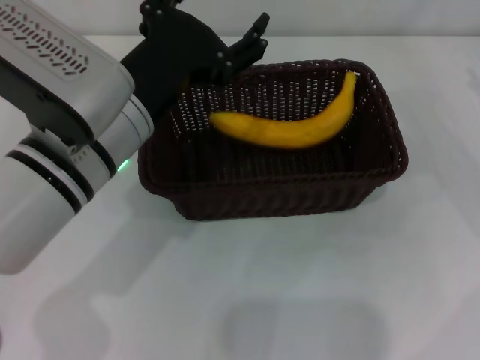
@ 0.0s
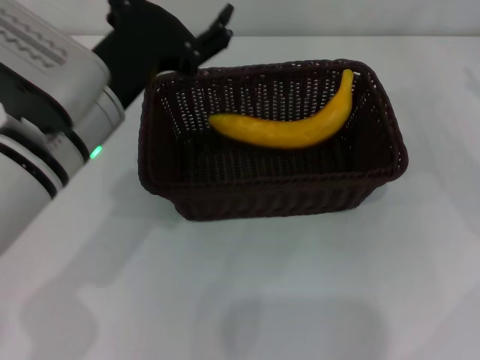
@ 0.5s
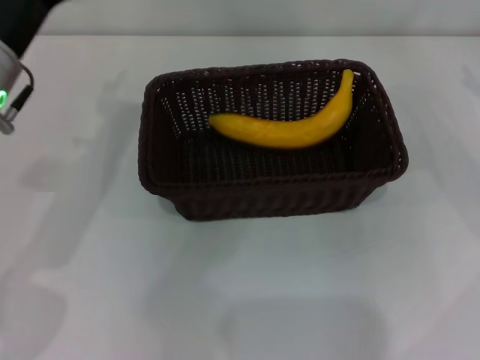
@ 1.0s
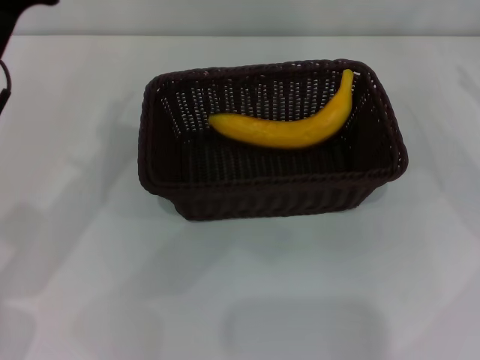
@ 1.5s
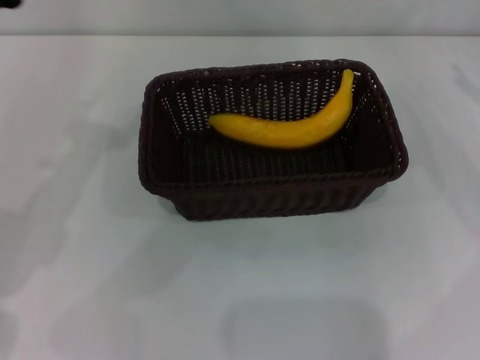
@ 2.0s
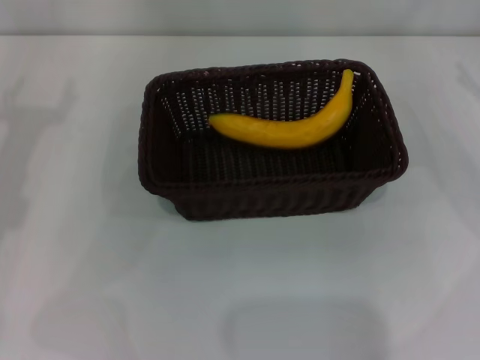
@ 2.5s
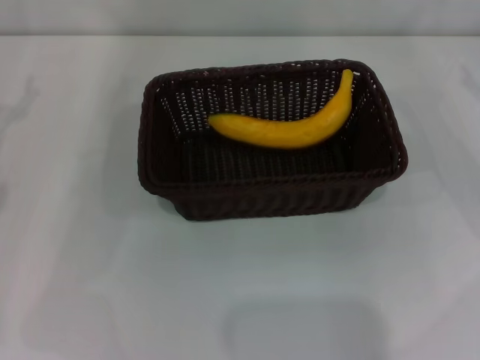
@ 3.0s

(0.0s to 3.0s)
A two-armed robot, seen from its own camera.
0.0s - 1.5s: The left gripper travels to the left by roughly 10 cm.
1.5s - 3.0s: The left gripper travels to the left by about 10 cm.

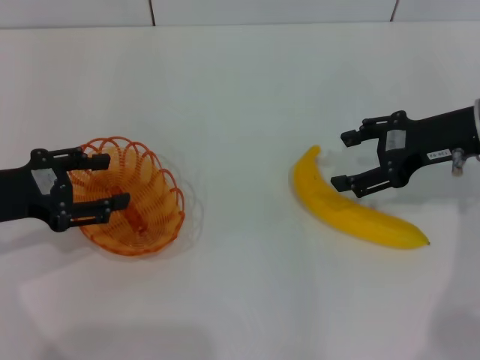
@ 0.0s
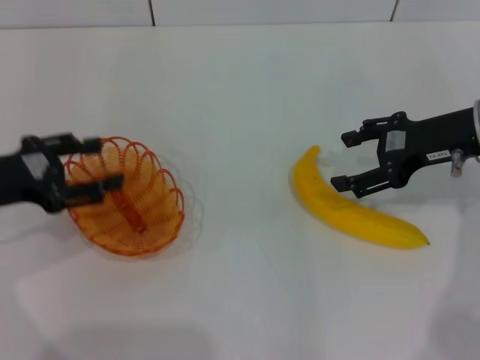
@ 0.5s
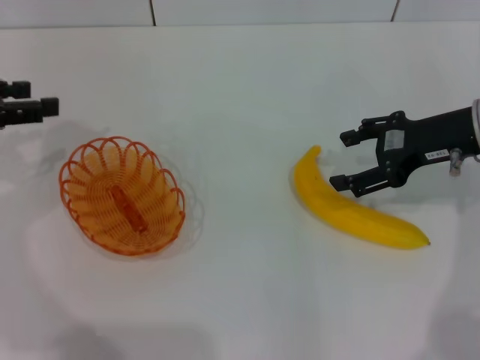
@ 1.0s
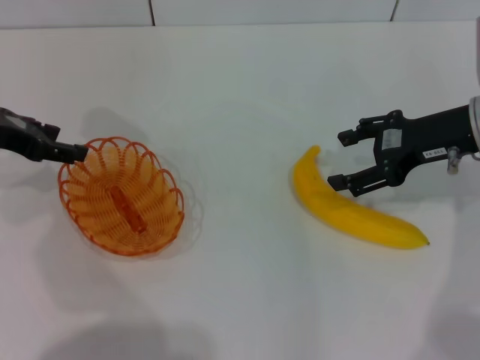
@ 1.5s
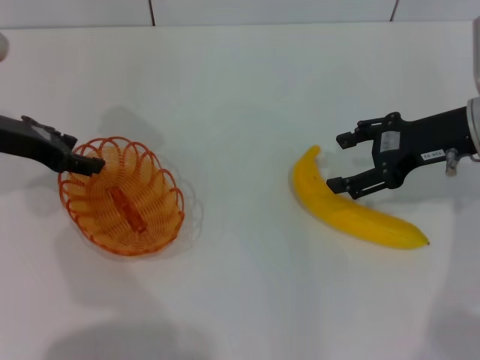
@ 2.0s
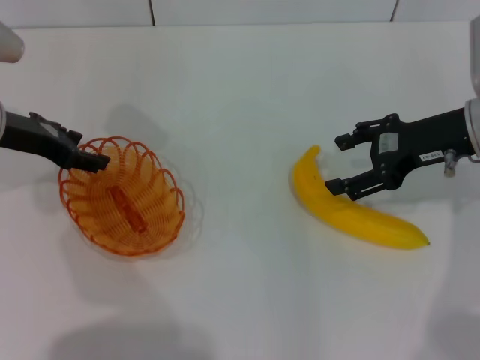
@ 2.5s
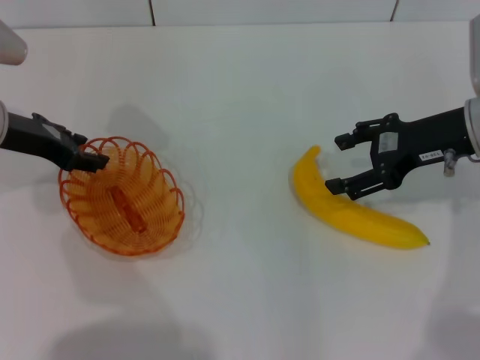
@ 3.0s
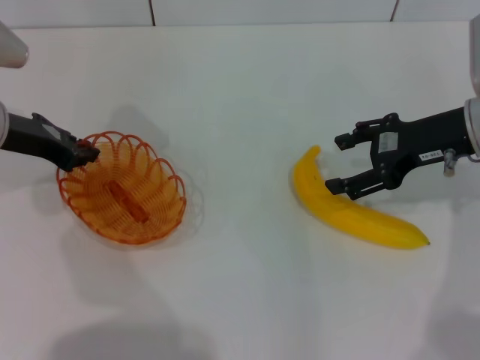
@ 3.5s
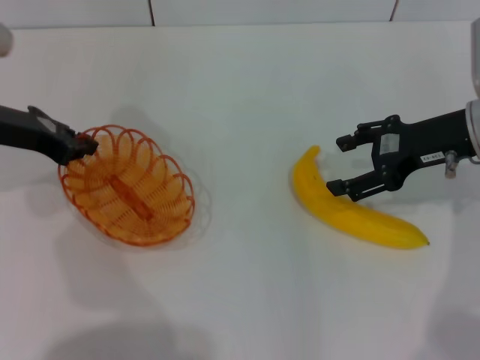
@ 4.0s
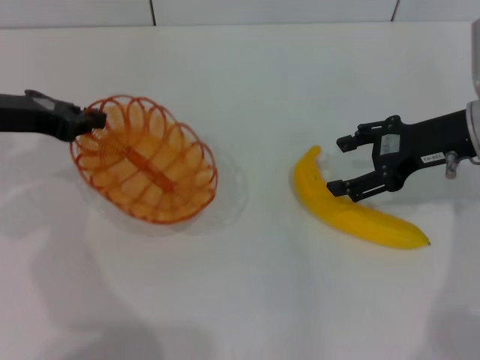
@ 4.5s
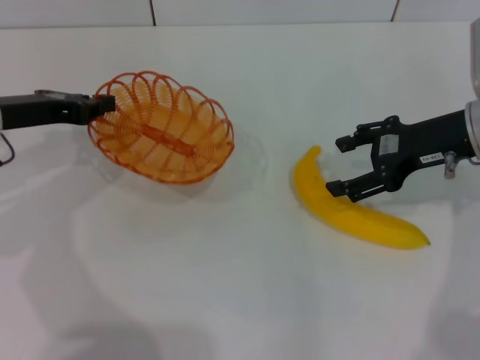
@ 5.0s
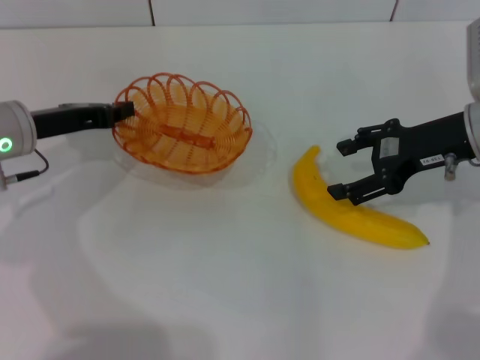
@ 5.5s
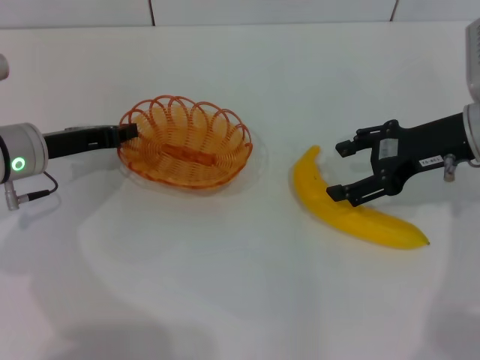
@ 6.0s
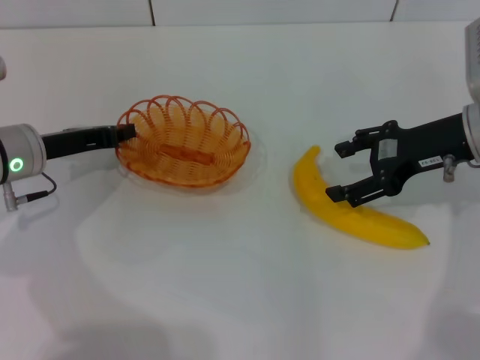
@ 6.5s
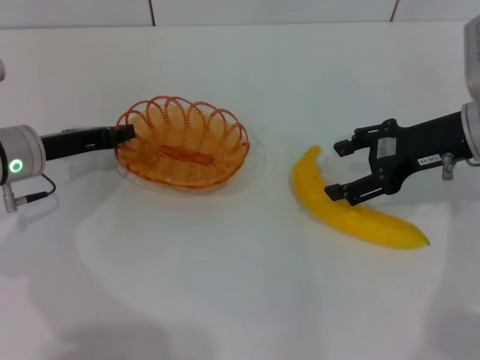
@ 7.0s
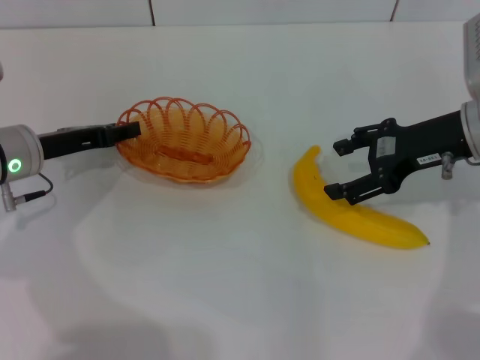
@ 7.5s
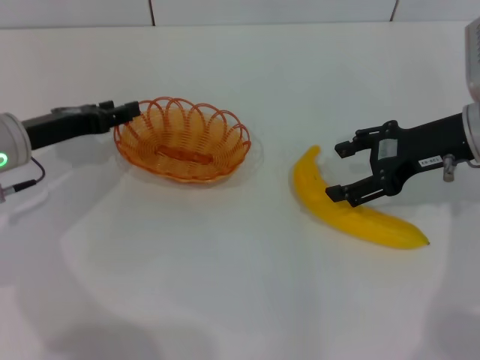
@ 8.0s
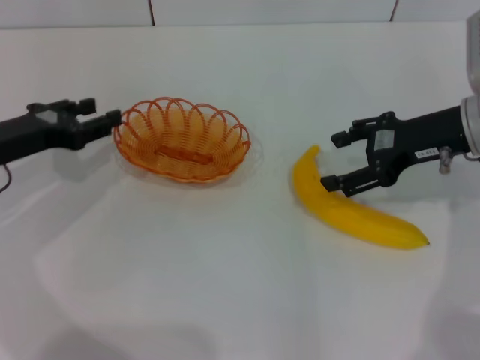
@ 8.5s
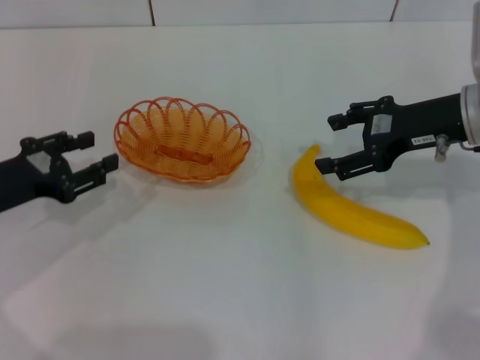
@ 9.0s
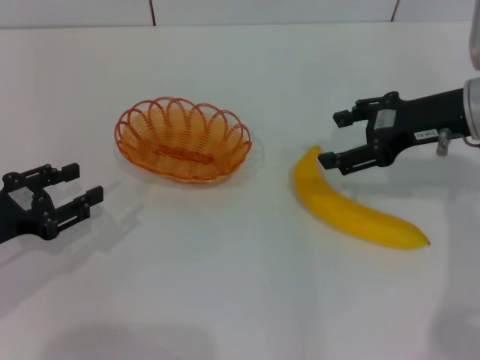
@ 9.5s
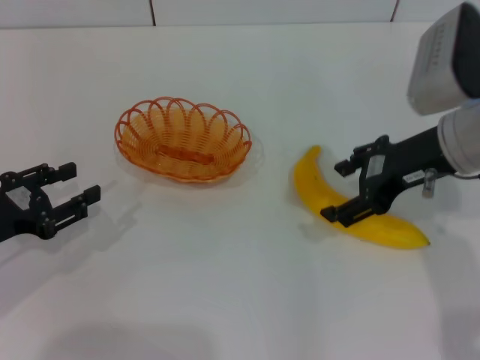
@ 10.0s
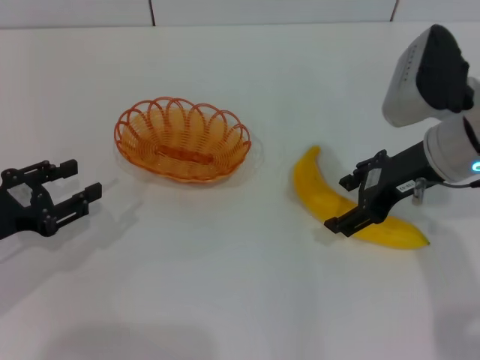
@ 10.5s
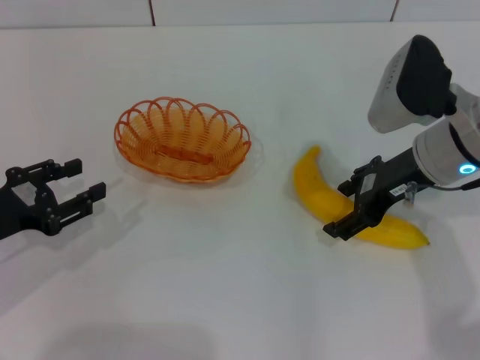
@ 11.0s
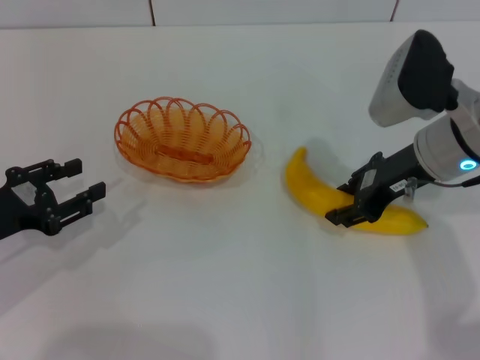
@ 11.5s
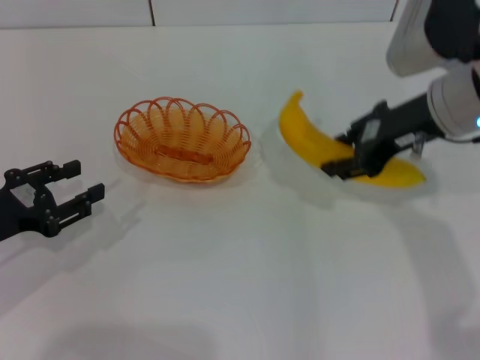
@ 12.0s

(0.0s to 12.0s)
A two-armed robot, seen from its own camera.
Step, 0.0s - 4.0s: Pick up the basket with the left gripper.
Step, 4.5s - 7.5s: Place the basket in the center of view with the left gripper.
Step, 8.0s - 11.5s: Pick up the banana with the right gripper.
0.0s - 2.0s: The left gripper moves forward, roughly 10 cm.
2.0s - 4.0s: The left gripper closes up.
4.0s - 6.0s: The left gripper travels downward by approximately 5 cm.
6.0s - 8.0s: The left gripper opens up.
8.0s - 10.0s: The right gripper changes place by some 5 cm. Meanwhile the left gripper shifts approximately 10 cm backward and to the left.
10.0s - 12.0s: The right gripper closes its fingers.

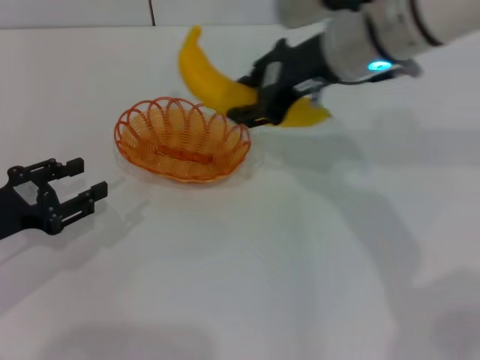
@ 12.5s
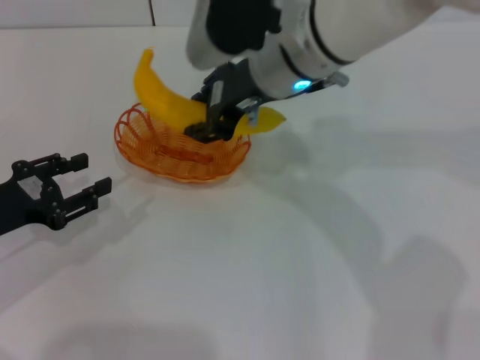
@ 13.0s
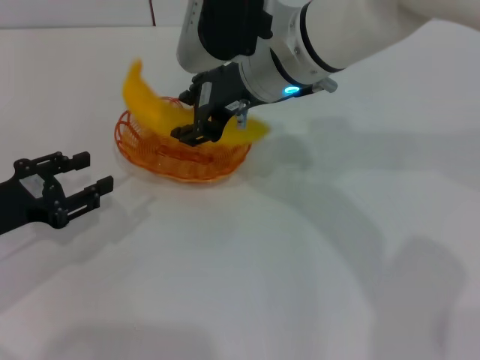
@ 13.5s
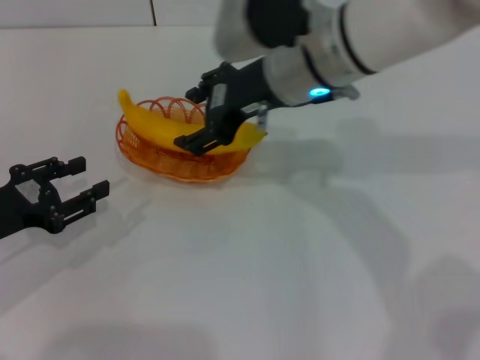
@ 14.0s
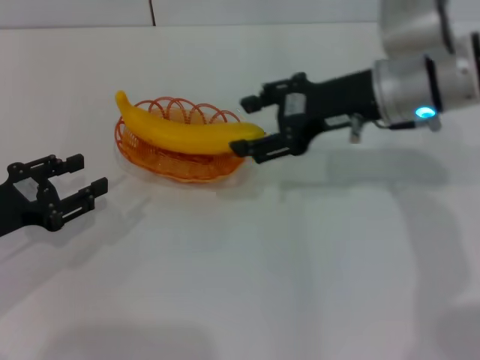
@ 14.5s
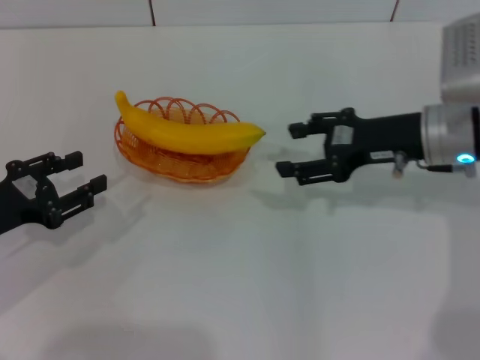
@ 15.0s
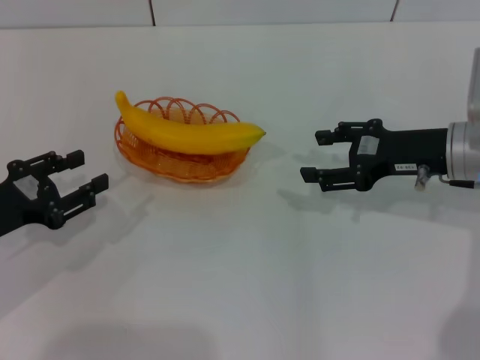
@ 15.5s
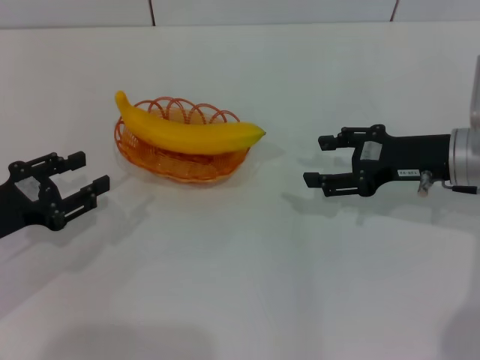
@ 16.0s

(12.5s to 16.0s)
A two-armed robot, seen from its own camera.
Step, 12.5s - 14.0s: Place the banana into the basket with the right gripper.
12.5s - 14.5s: The right gripper moves to the right, approximately 5 cm, and opens its fingers.
14.5s - 16.0s: The right gripper heads to the right and downward, covering approximately 10 cm.

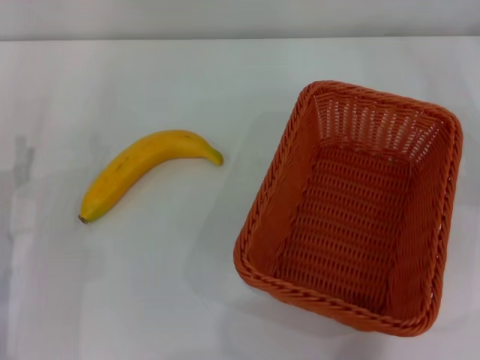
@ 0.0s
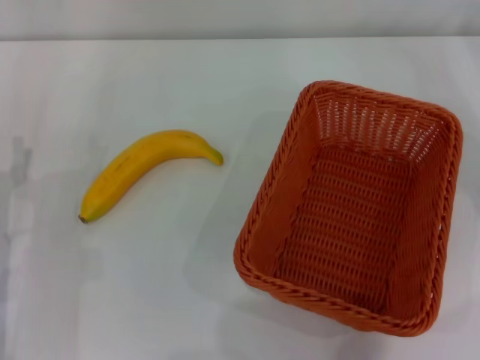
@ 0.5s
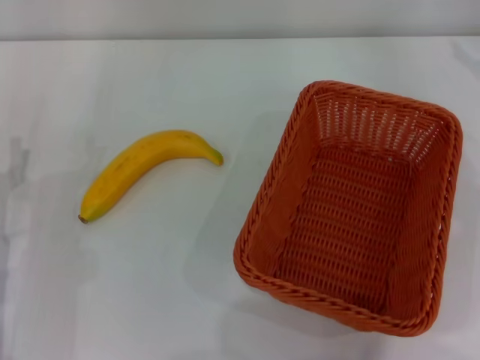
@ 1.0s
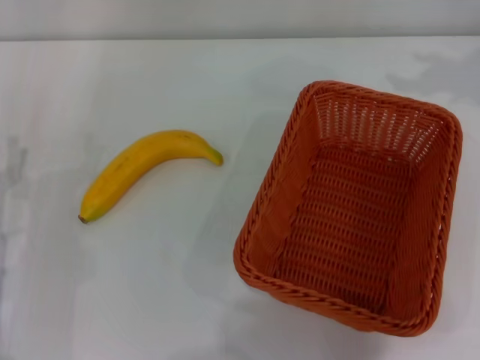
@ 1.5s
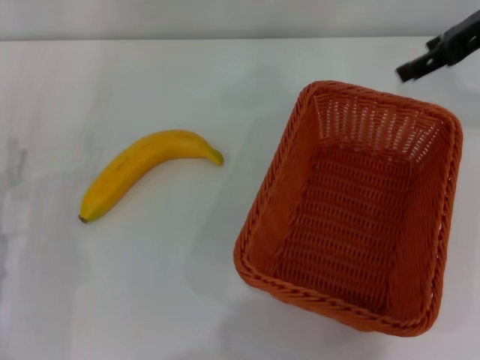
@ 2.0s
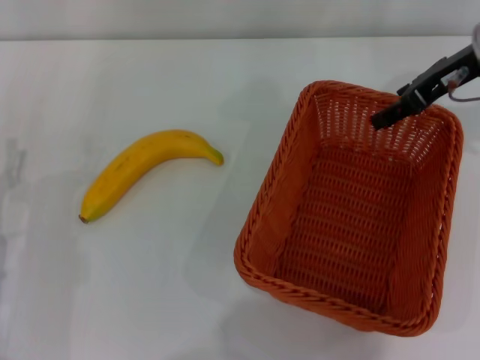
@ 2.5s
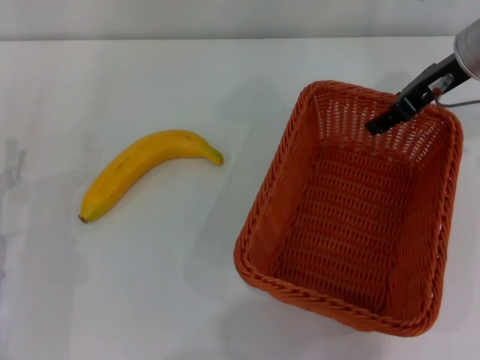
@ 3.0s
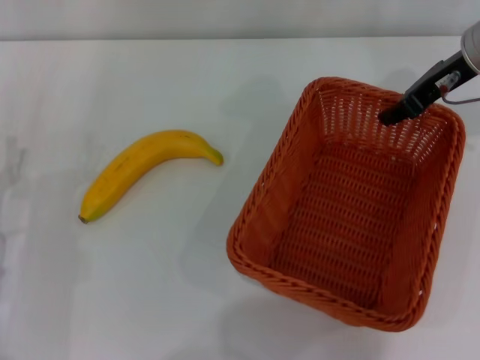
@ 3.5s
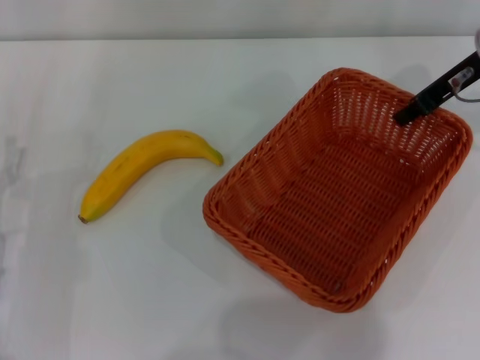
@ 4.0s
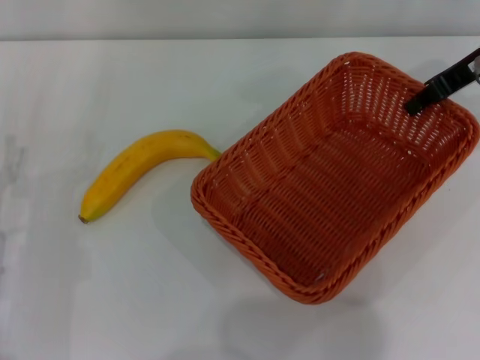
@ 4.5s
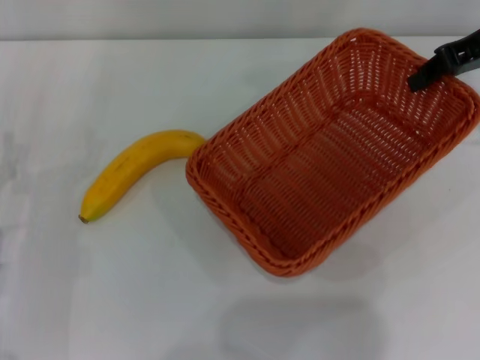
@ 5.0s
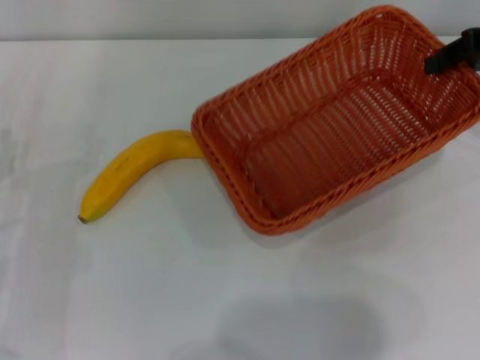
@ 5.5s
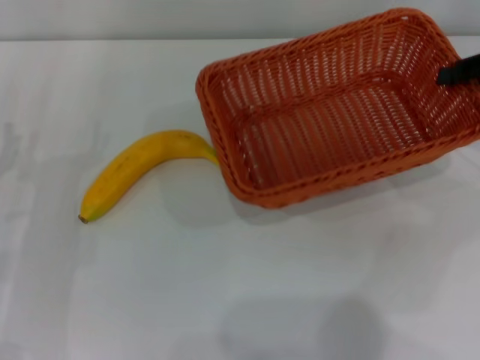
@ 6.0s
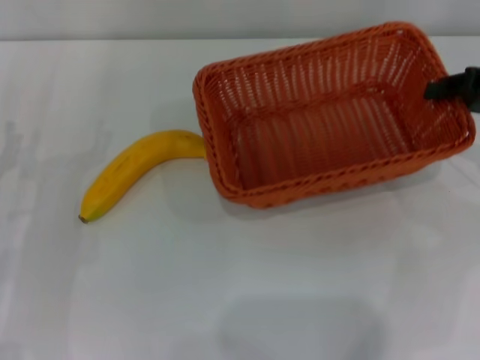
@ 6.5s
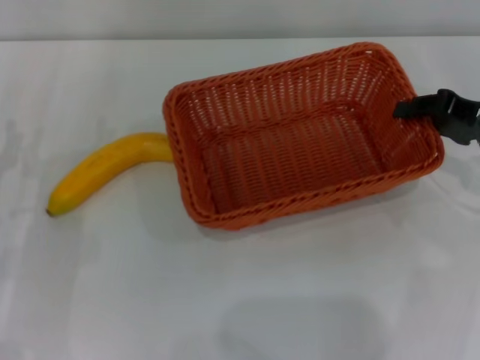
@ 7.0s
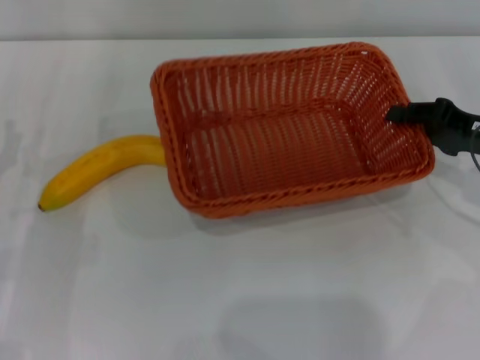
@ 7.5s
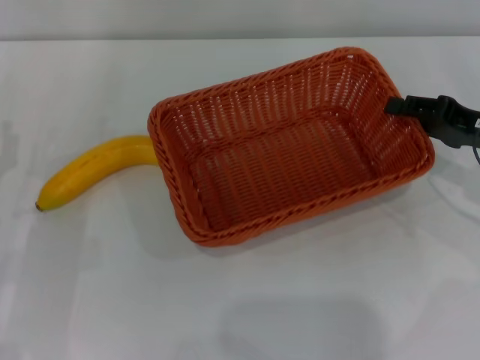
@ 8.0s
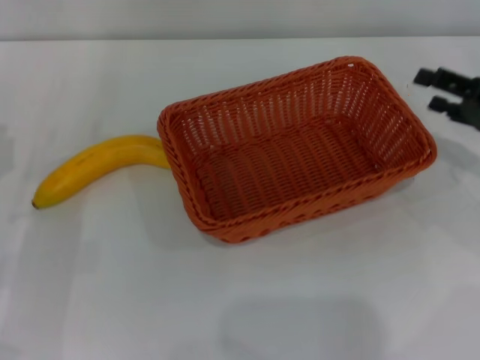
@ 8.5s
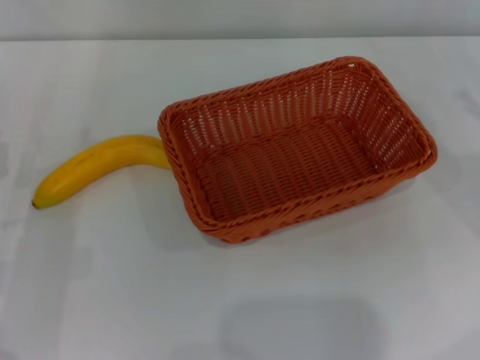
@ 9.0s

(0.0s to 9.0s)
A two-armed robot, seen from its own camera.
Step, 0.0s - 6.0s: Pick up the light basket with the right gripper.
Step, 6.5s - 8.0s: Place the light basket in the center of view with the right gripper.
0.0s - 2.0s: The right gripper heads upward, to the left and forward, covering some 20 cm.
2.0s - 4.5s: The right gripper closes up.
4.5s - 7.0s: The right gripper heads downward and backward, covering about 15 cm.
7.0s - 9.0s: The left gripper closes up; the right gripper travels to the right by approximately 10 cm, and opens its fingers.
